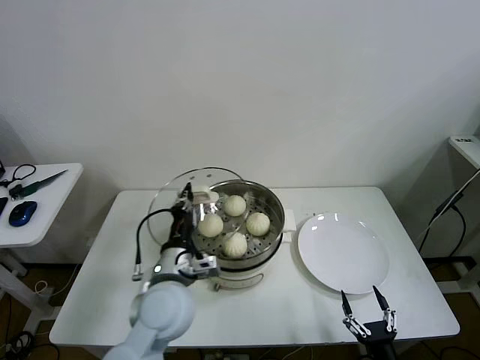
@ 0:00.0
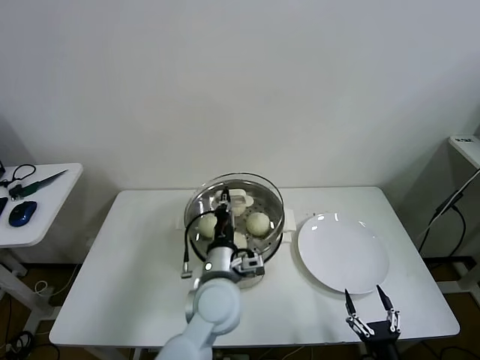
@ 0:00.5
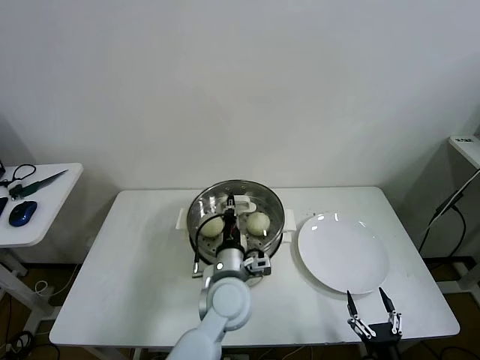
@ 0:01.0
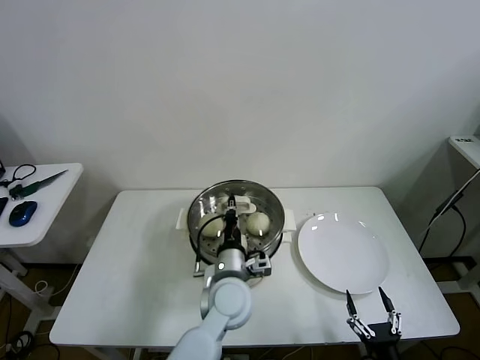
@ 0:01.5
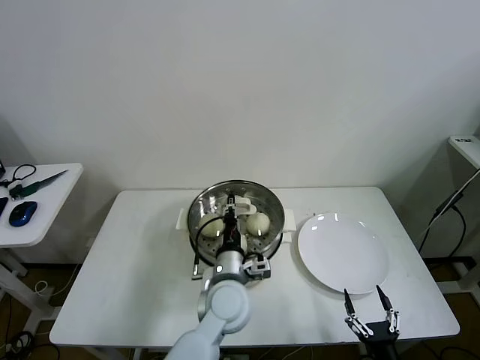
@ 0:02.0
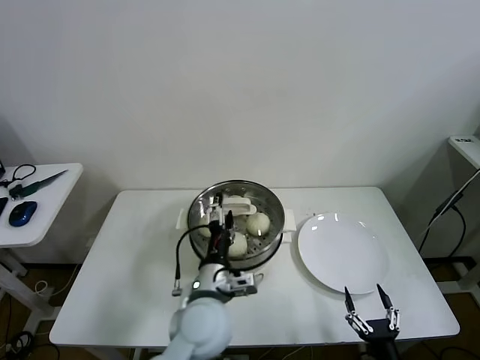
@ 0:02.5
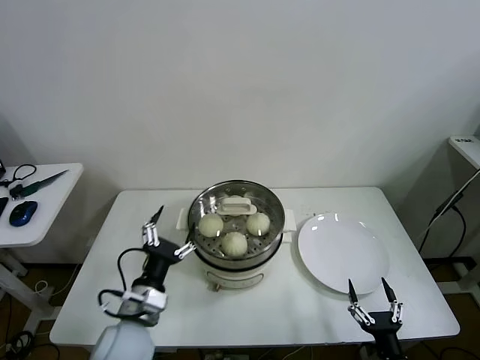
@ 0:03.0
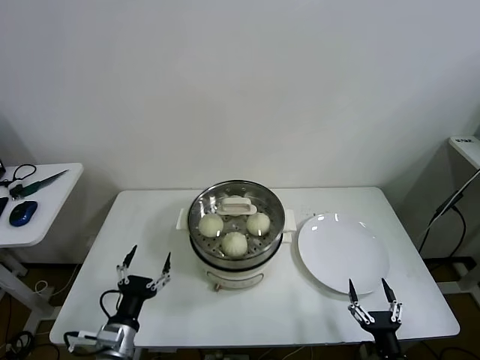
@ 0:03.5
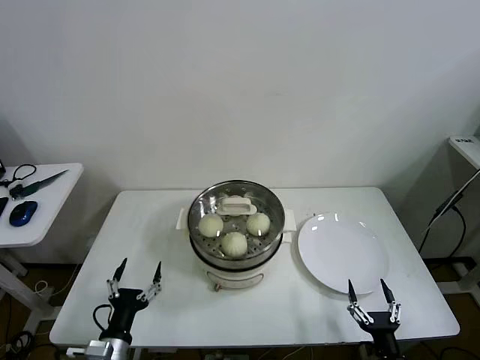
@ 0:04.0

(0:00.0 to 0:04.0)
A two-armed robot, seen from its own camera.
Task of the whole recording: take steamed baozi put them in steamer then cover it.
Step, 0:00.0 - 0:02.0: Place the pot lid on the steamer with left gripper.
0:00.0 - 0:02.0: The left gripper goes about 15 cm to the right and downward.
0:02.0 - 0:04.0: The left gripper travels to the left and backward by approximately 30 cm, and opens.

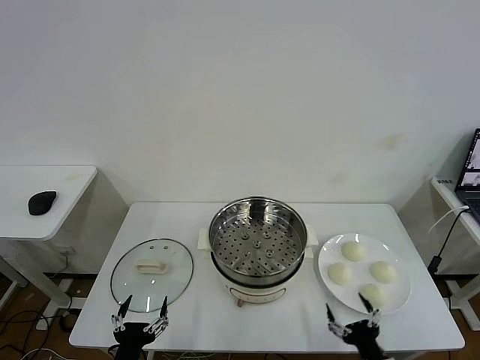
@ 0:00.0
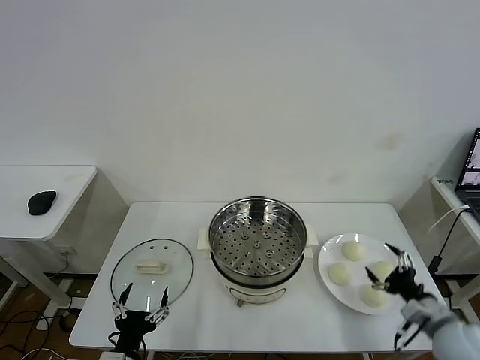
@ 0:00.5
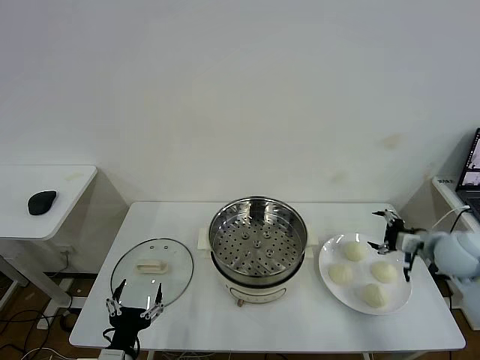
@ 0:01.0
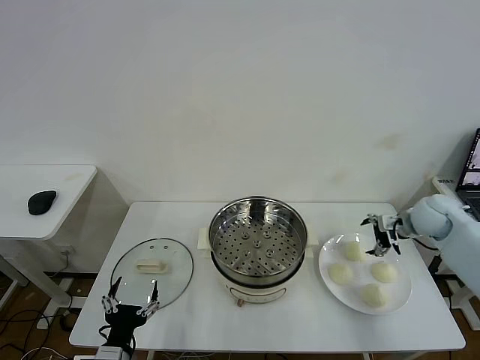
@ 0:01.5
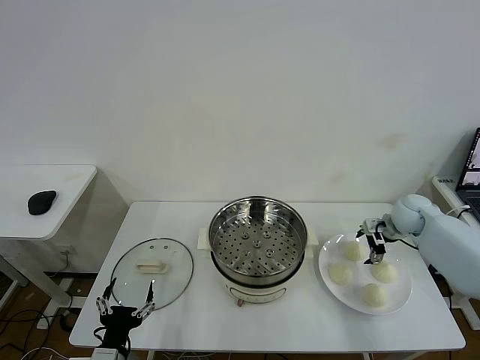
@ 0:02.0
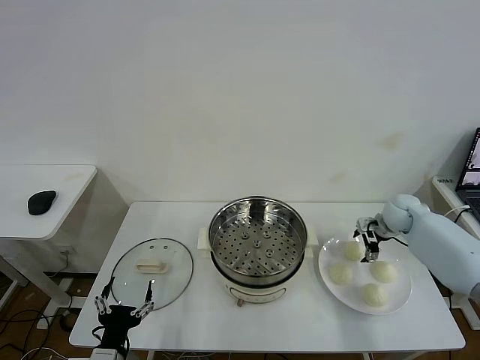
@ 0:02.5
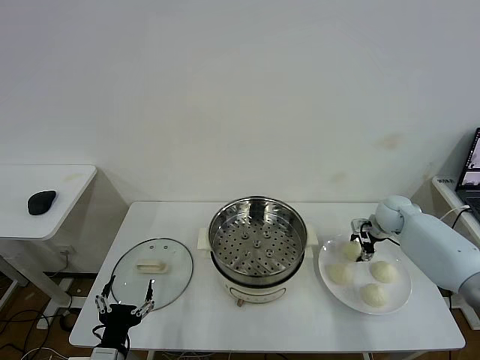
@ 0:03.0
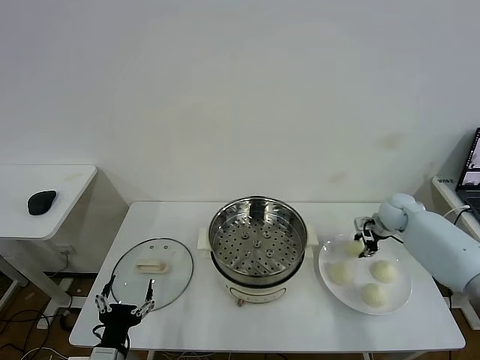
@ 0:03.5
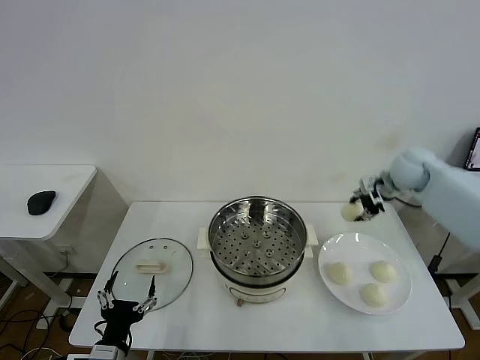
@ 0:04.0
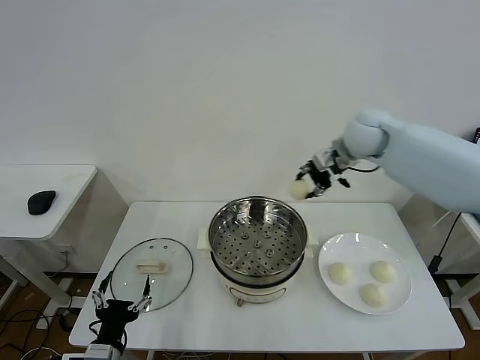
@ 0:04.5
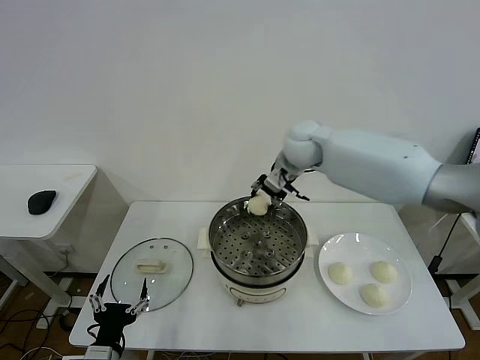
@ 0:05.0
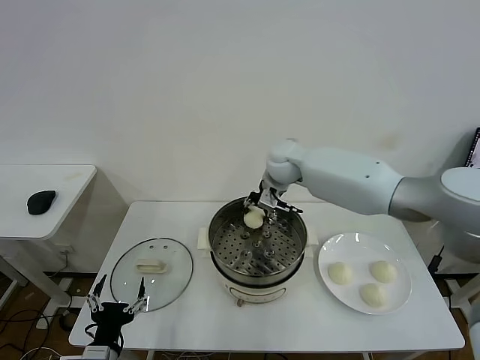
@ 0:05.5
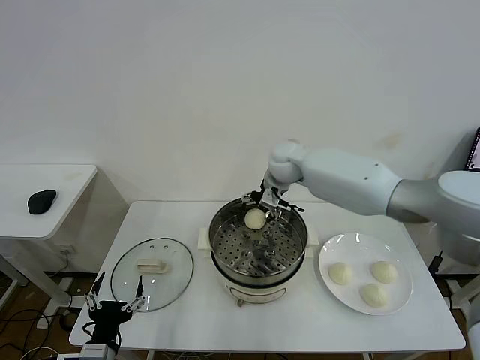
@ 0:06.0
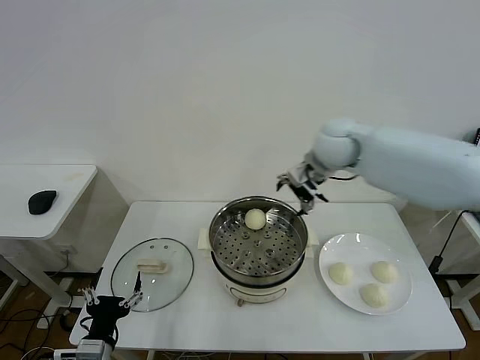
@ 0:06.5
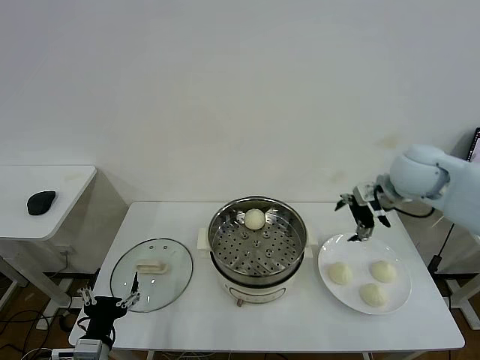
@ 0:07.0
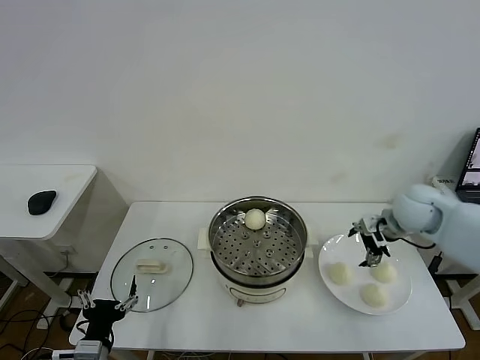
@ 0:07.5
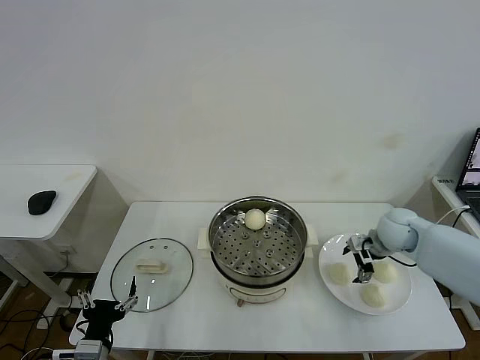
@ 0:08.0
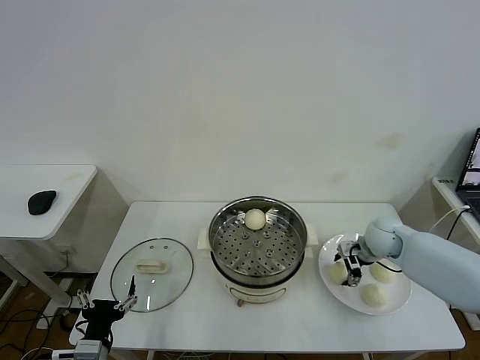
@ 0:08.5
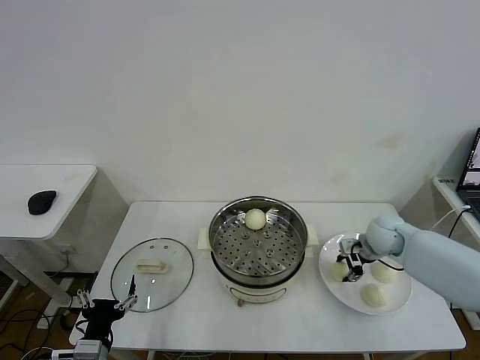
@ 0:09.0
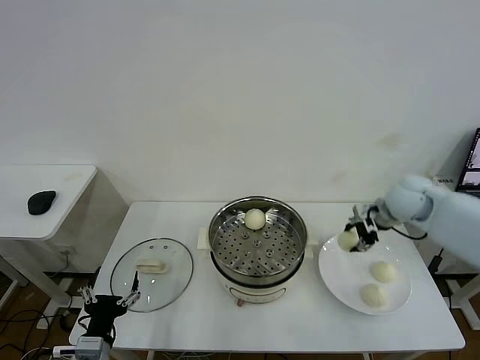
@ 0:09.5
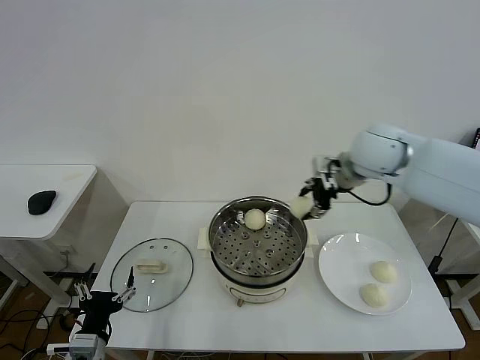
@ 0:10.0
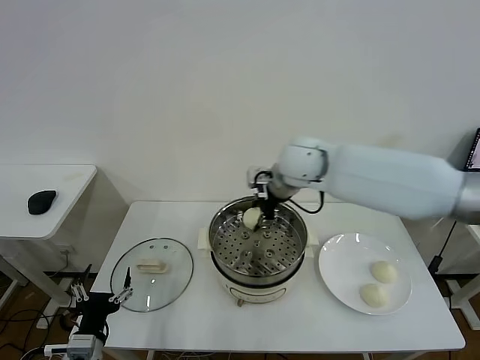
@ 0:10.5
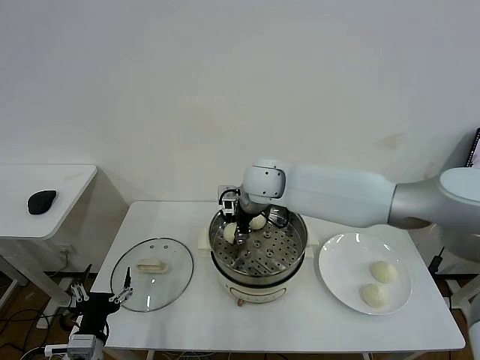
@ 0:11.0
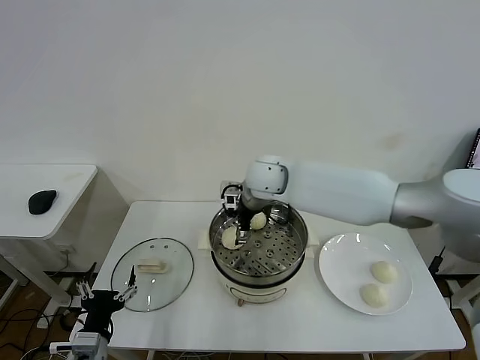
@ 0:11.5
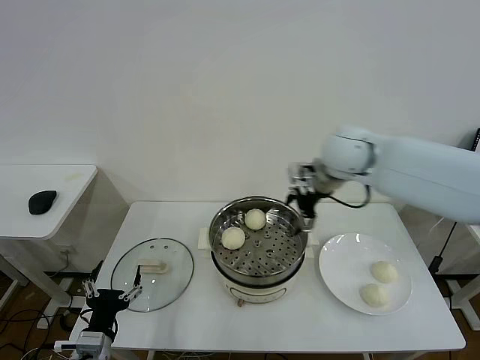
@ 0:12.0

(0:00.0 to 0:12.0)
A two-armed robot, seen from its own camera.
Task of the whole recording: take steamed baozi put them in steamer then cover it.
Step, 0:00.0 - 0:03.0: Grasp the baozi in the plate with right gripper.
Step, 0:03.5 - 0:06.0: Place the baozi on the steamer with right gripper.
Step, 0:06.5 - 0:08.5: Grasp the baozi in the plate with right gripper.
Step, 0:09.0 - 0:11.5: Place the baozi on the steamer with right gripper.
0:02.0 - 0:04.0: The right gripper goes about 15 cm upward, and closes.
0:04.0 - 0:06.0: The right gripper goes approximately 25 cm to the left, and opens.
0:06.0 - 0:08.0: The right gripper heads to the right, downward and backward, covering approximately 30 cm.
0:08.0 - 0:10.0: The right gripper heads upward and to the left, covering approximately 25 cm, and closes up.
0:10.0 - 0:12.0: The right gripper reaches some 20 cm to the left, then returns, and opens up.

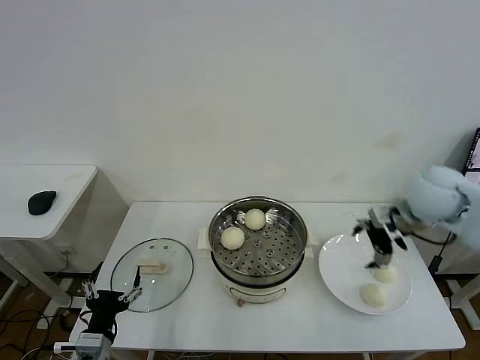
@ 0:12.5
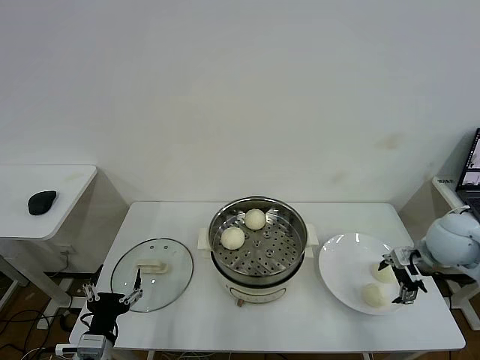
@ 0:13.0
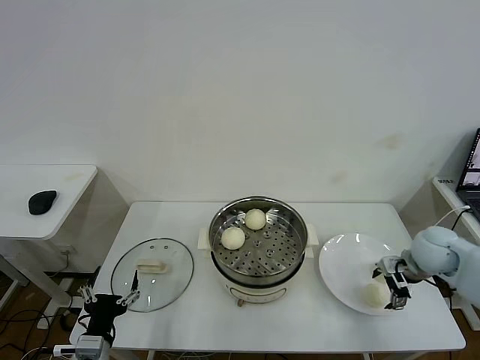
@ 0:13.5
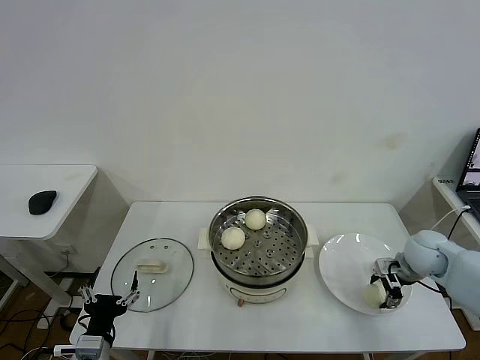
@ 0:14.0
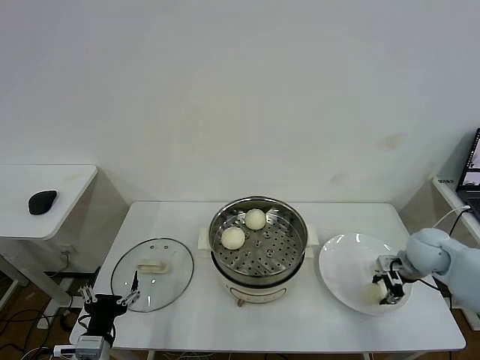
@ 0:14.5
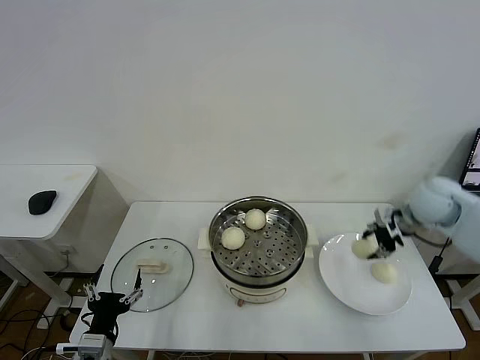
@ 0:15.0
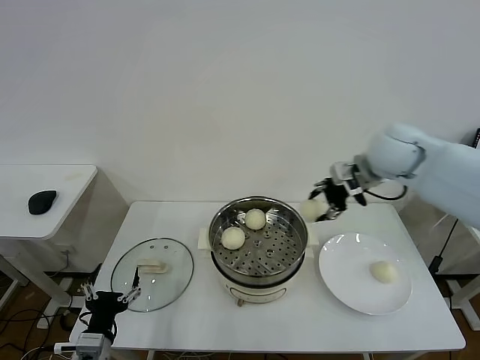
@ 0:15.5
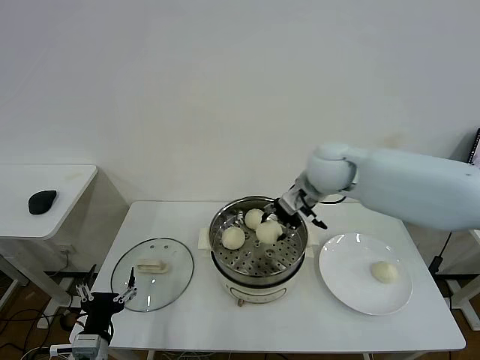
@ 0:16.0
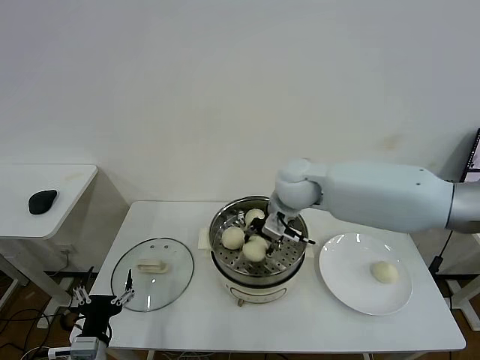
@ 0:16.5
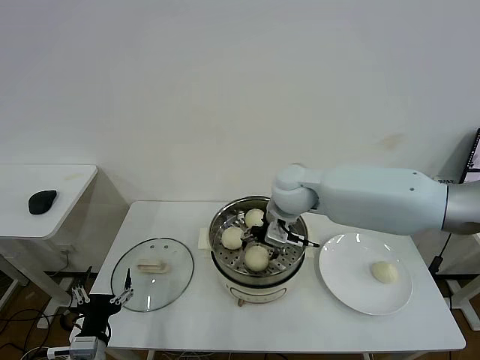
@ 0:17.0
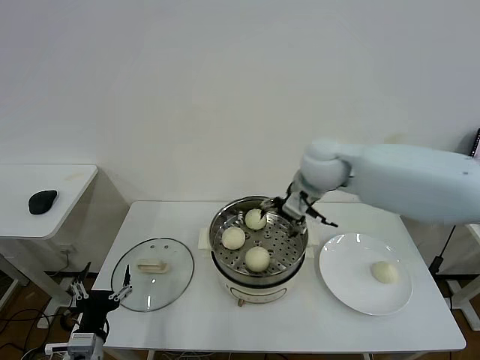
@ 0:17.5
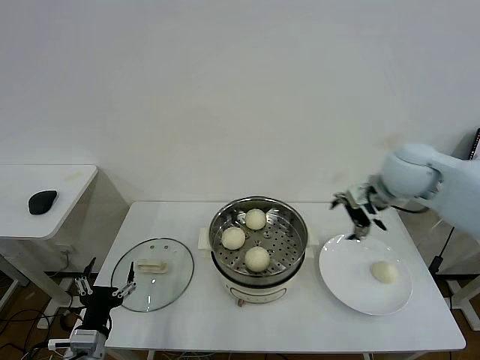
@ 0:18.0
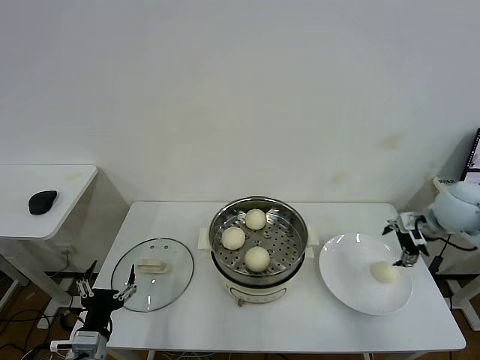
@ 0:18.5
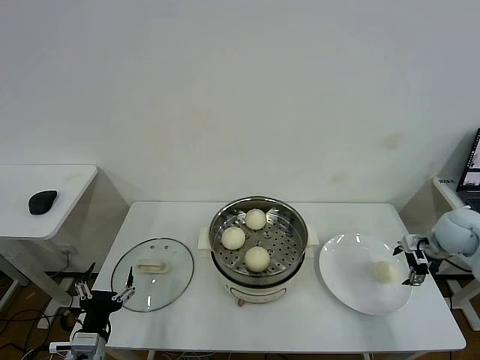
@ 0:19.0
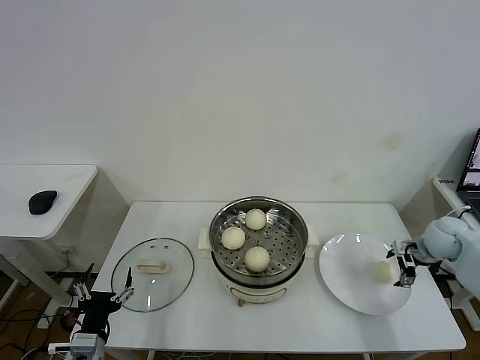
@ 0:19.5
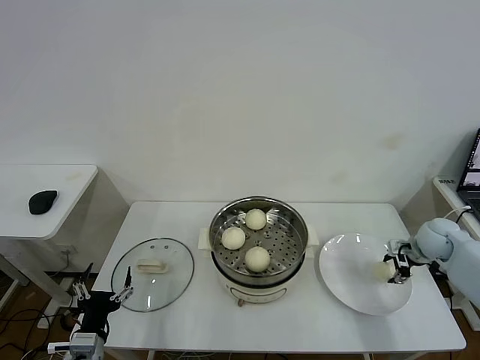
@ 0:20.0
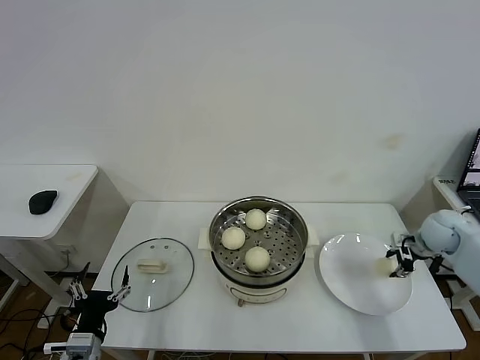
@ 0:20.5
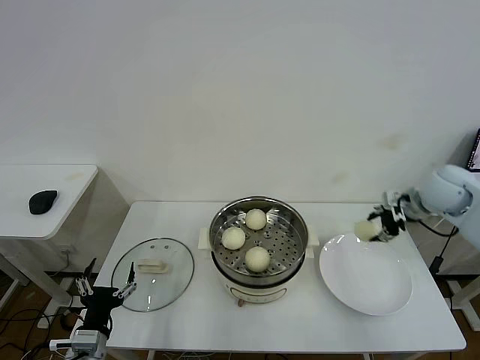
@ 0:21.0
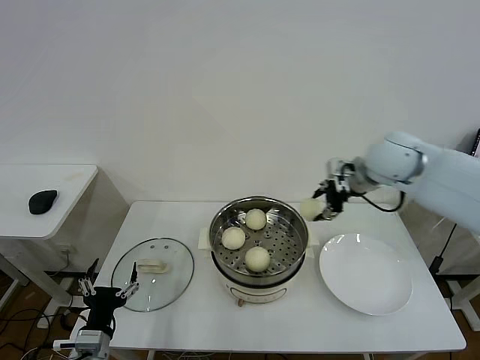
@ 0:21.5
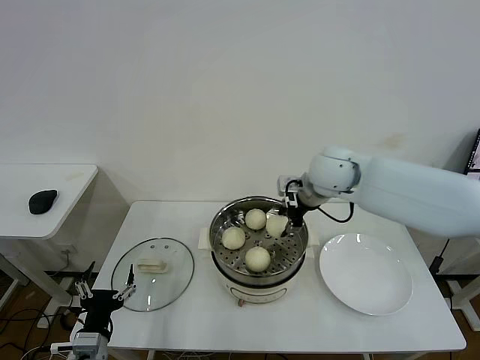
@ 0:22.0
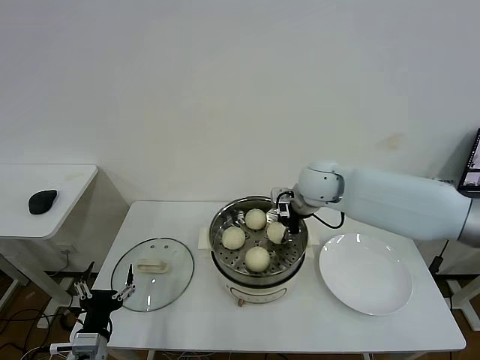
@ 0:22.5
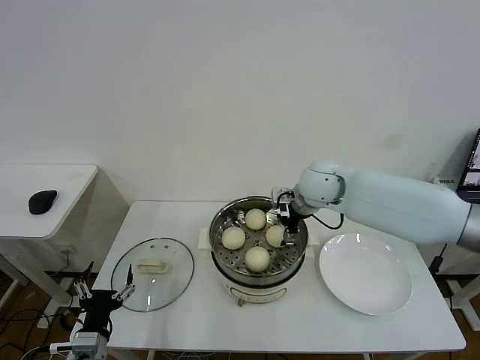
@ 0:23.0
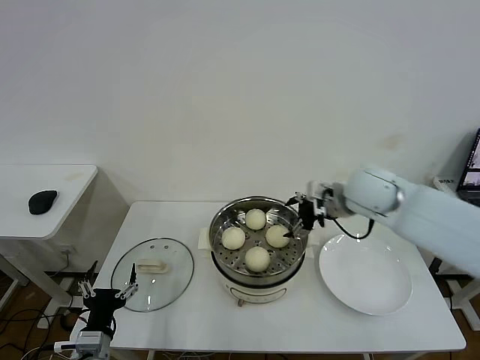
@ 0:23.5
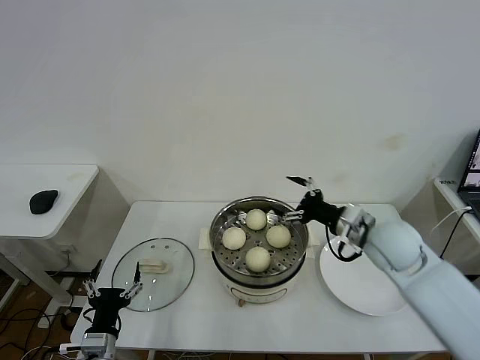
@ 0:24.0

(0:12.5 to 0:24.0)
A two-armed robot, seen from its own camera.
Task of the whole recording: take steamed baozi put them in steamer then cover it.
Step, 0:12.5 - 0:14.0: Grasp the baozi in the plate with right gripper.
Step, 0:14.5 - 0:17.0: Place the baozi on the steamer with right gripper.
Step, 0:17.5 - 0:20.0: Grasp the baozi in the plate with right gripper.
Step, 0:20.5 - 0:23.0: Place the baozi on the steamer with right gripper.
0:12.5 - 0:14.5: The right gripper travels downward by some 15 cm, and closes up.
0:14.5 - 0:16.5: The right gripper goes some 35 cm to the left and upward.
0:16.5 - 0:18.5: The right gripper heads to the right, covering about 35 cm, and opens its fingers.
0:18.5 - 0:20.0: The right gripper heads downward, covering about 15 cm, and closes its fingers.
0:20.0 - 0:22.0: The right gripper travels to the left and upward by roughly 35 cm.
0:22.0 - 0:24.0: The right gripper is displaced backward, to the right and downward by some 20 cm, and opens.
